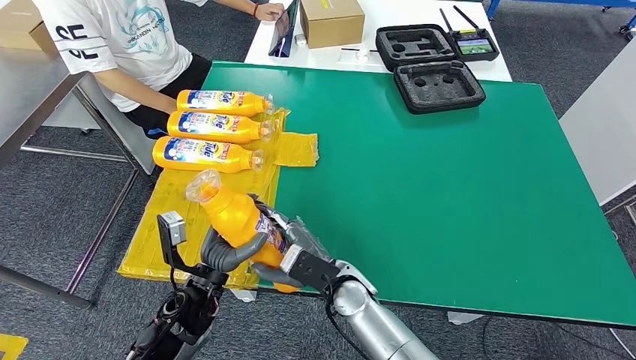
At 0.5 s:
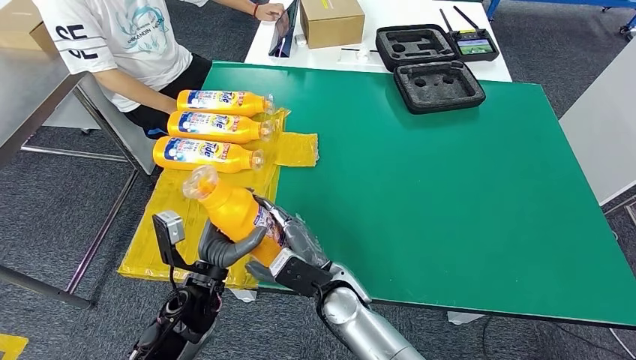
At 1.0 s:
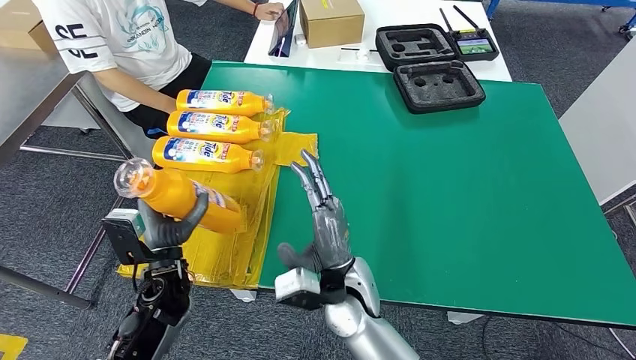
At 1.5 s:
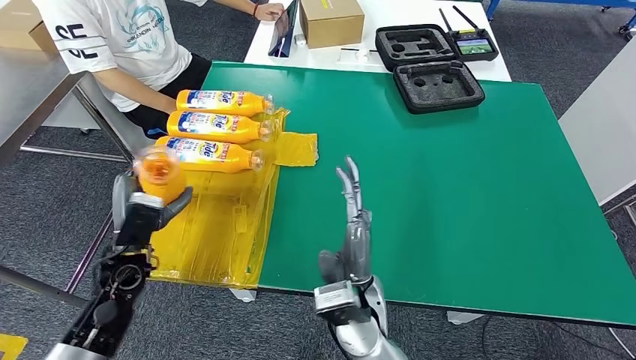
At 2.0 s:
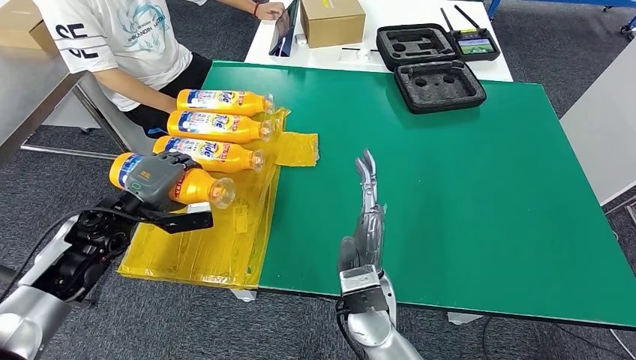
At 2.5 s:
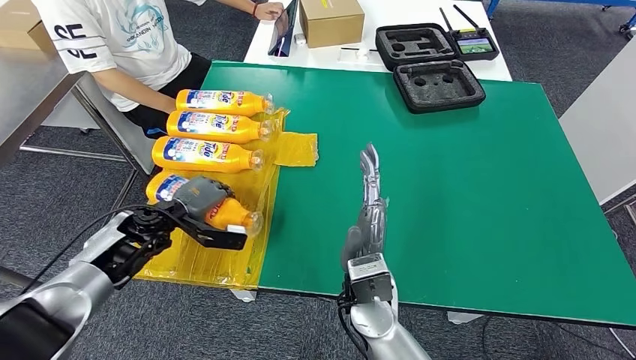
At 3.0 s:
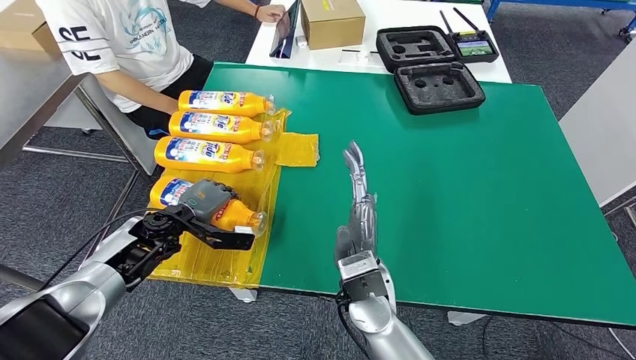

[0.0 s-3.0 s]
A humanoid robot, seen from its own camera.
Step, 0.0 to 3.0 s: Flip the bottle to face forward.
0.0 to 1.5 s: The left hand goes some 15 cm to the left. The right hand is displaced upward and backward by approximately 10 cm.
1.5 to 3.0 s: The left hand heads forward, covering some 10 cm.
